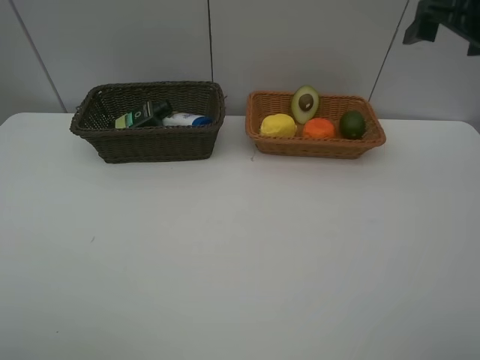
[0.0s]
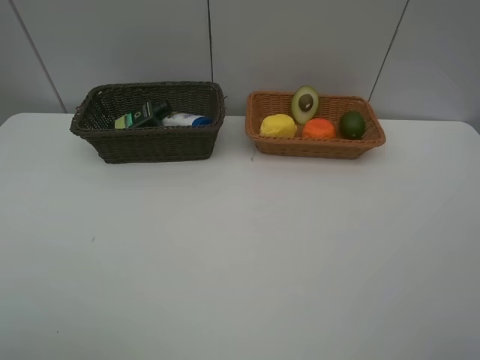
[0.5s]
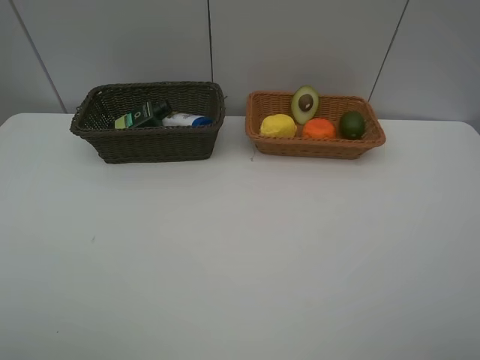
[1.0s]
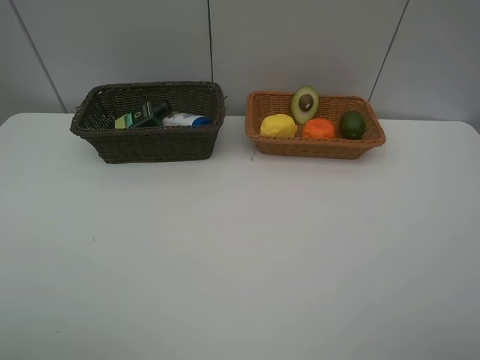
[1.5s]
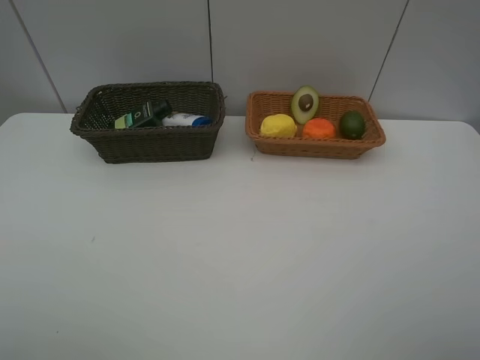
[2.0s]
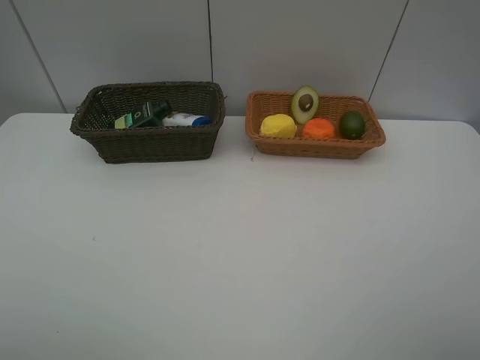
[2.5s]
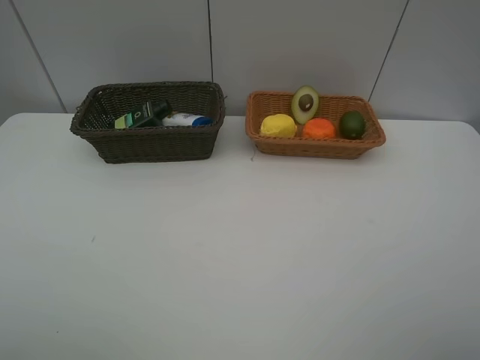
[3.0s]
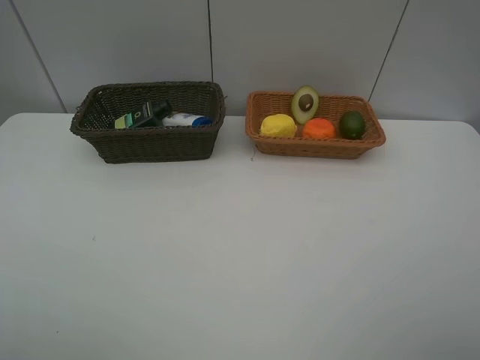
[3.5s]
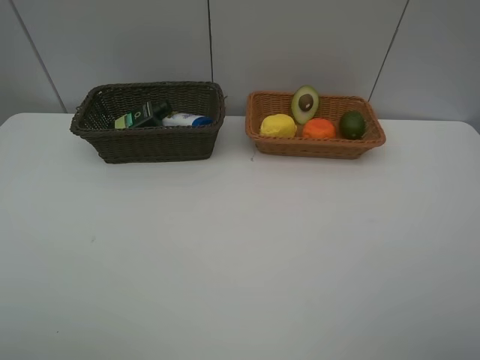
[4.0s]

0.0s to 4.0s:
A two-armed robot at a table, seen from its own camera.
Task of the whole recording: Place multiple objects separately in different baskets.
0.0s to 2.0s: The right gripper shifts some 30 cm backward.
2.0s to 4.0s: Both grippers stay about where they are.
